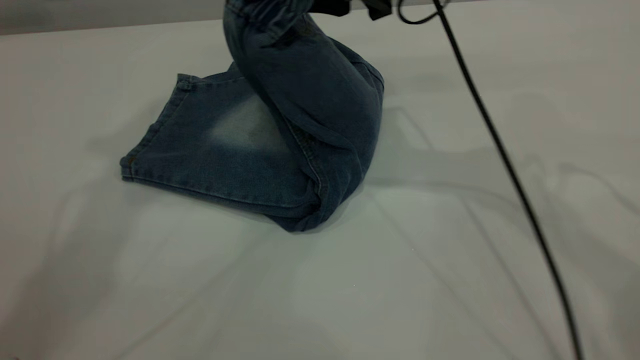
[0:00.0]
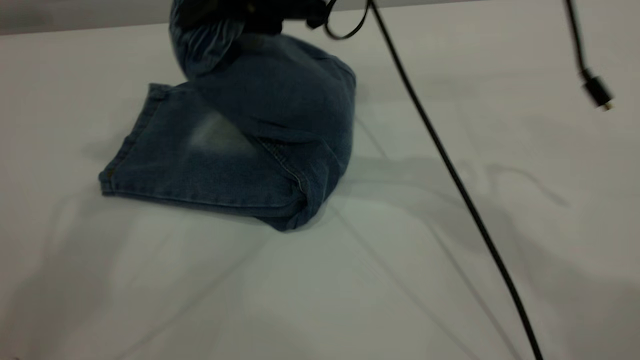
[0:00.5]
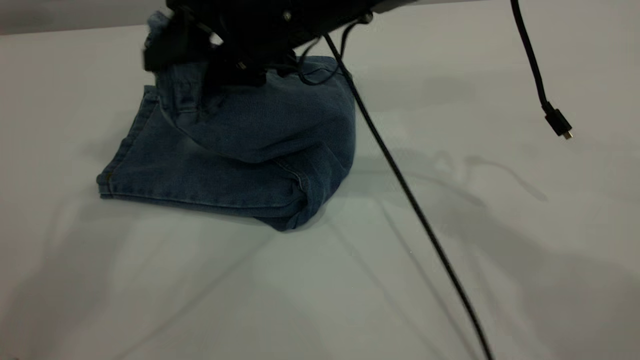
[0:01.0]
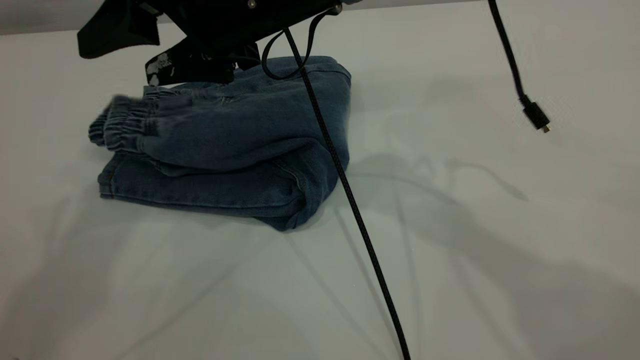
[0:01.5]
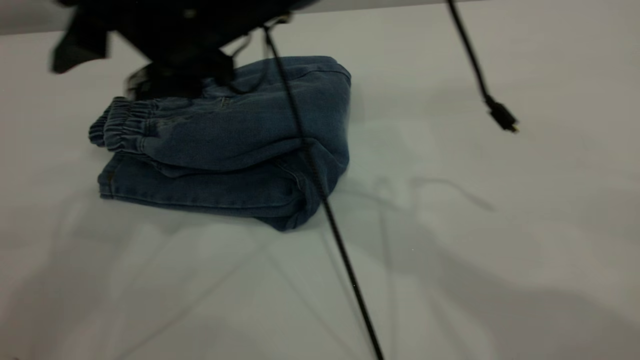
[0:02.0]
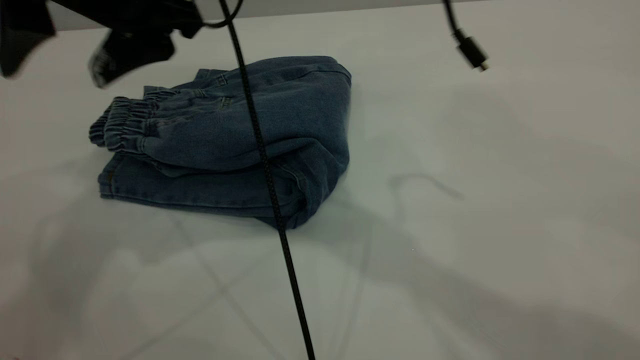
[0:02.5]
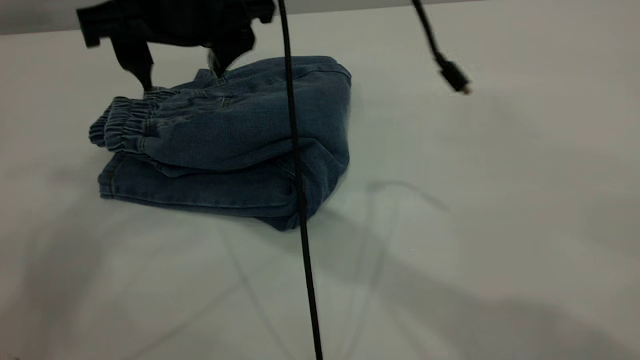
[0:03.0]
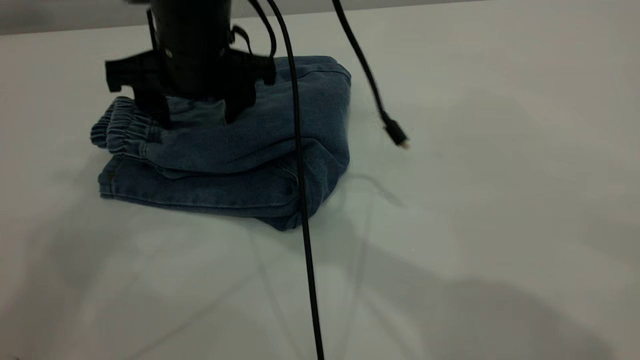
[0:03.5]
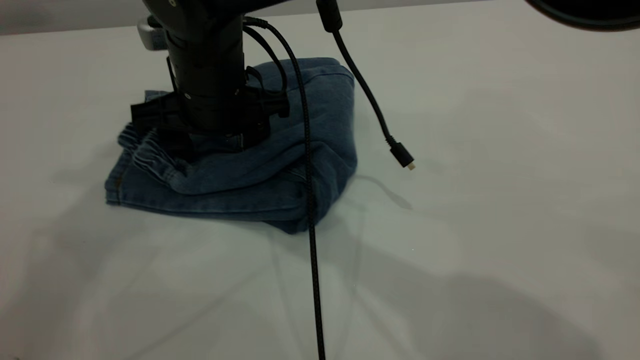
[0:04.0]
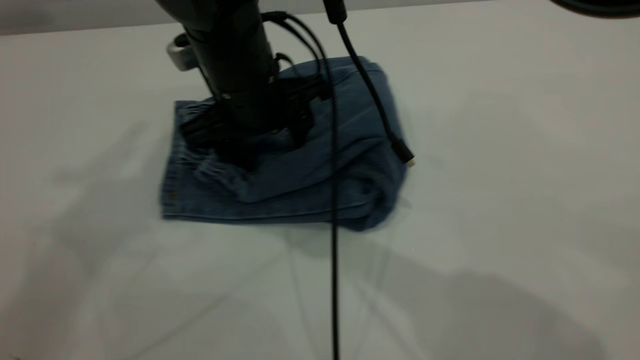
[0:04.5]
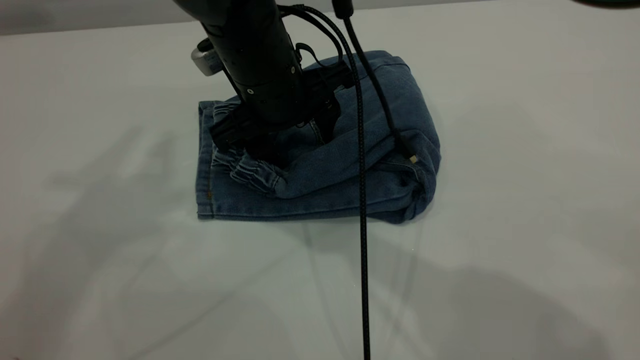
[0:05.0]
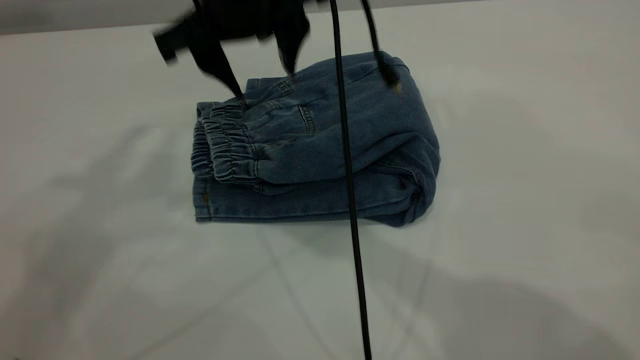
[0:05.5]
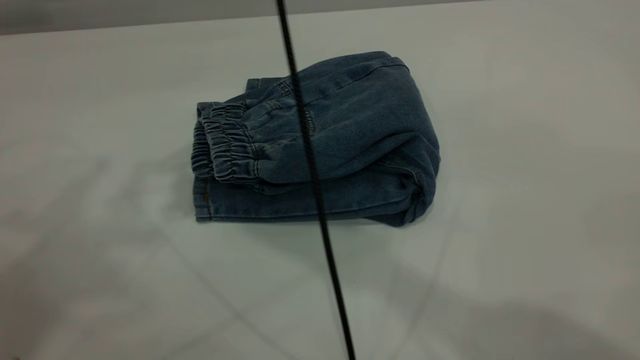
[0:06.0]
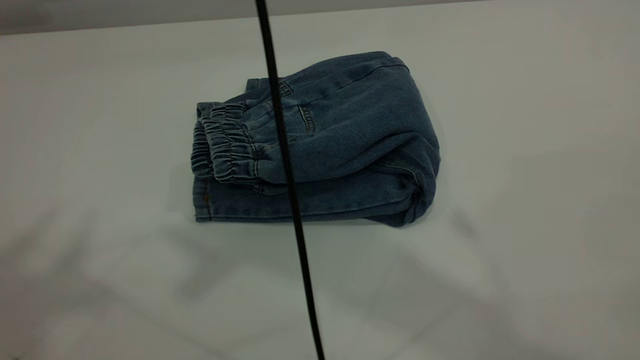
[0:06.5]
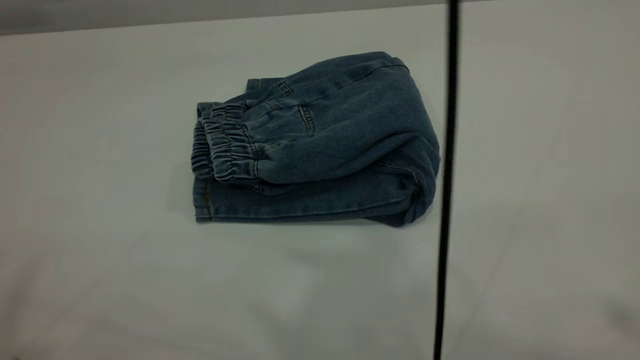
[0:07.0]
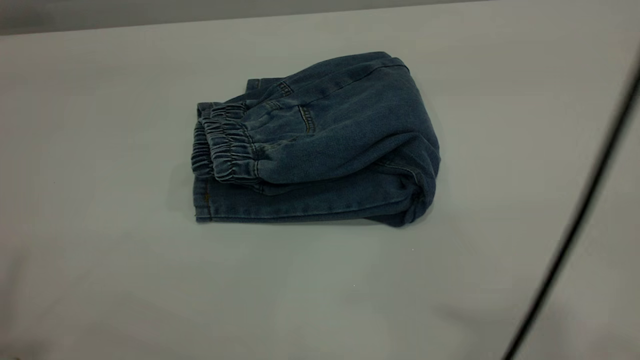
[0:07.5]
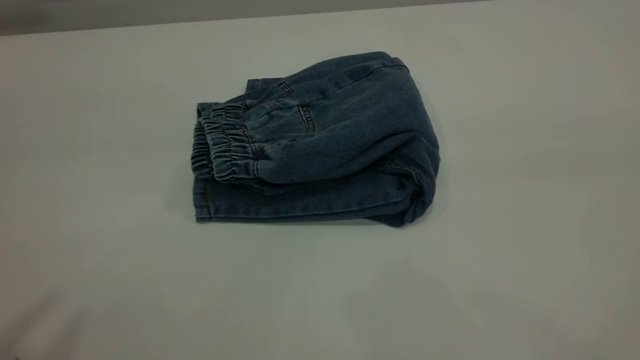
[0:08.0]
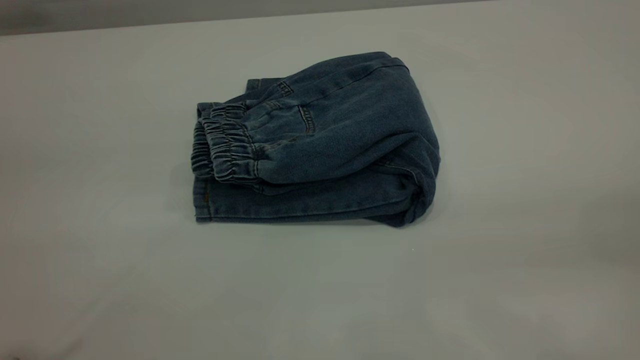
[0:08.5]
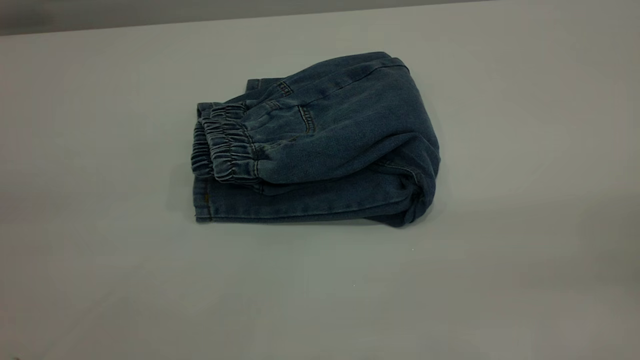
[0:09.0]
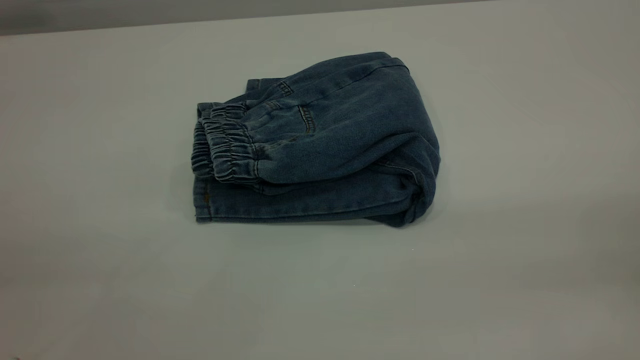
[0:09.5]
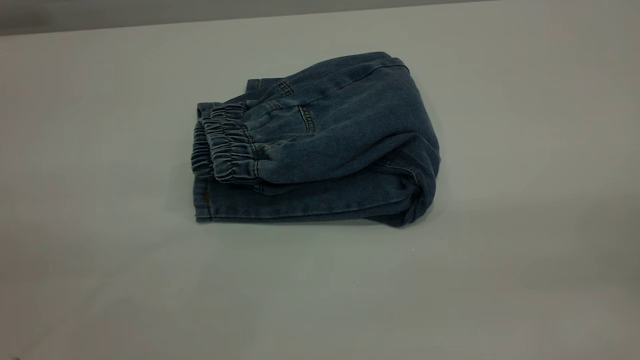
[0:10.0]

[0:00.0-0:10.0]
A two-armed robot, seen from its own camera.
0:00.0 to 0:02.0: The right gripper moves to the left, approximately 15 cm, and opens up.
0:02.0 to 0:04.0: The right gripper heads downward, covering some 10 cm, while the left gripper ends up about 5 cm from where it was.
0:04.0 to 0:06.0: The right gripper shifts roughly 25 cm upward; the left gripper heads backward, covering roughly 5 cm.
0:06.0 to 0:08.0: The right gripper is displaced backward and to the right by approximately 40 cm. Meanwhile the left gripper moves backward and downward, some 15 cm.

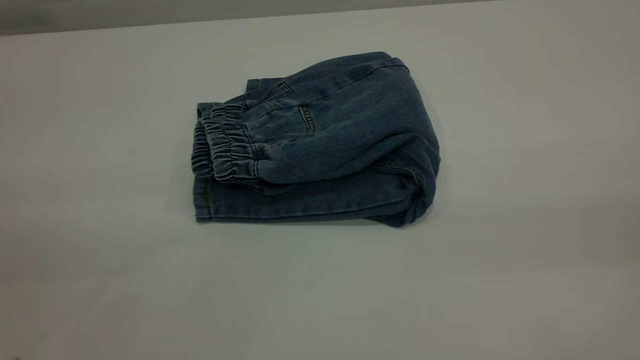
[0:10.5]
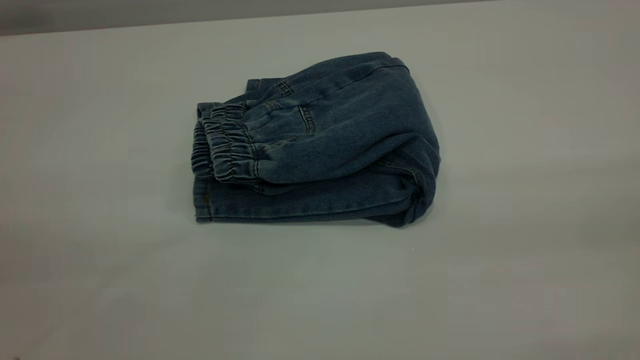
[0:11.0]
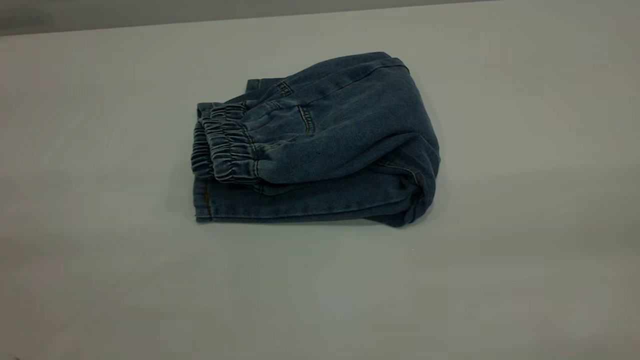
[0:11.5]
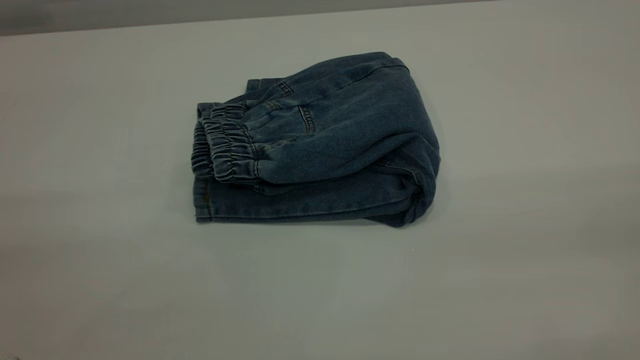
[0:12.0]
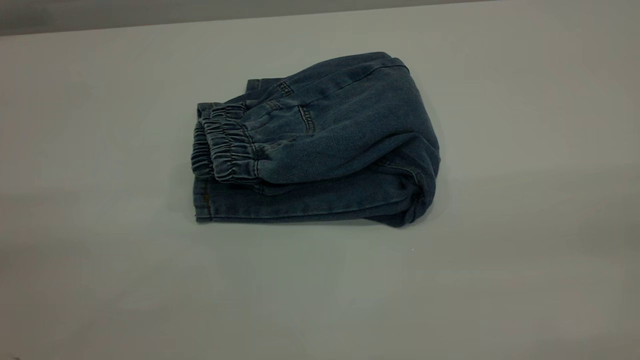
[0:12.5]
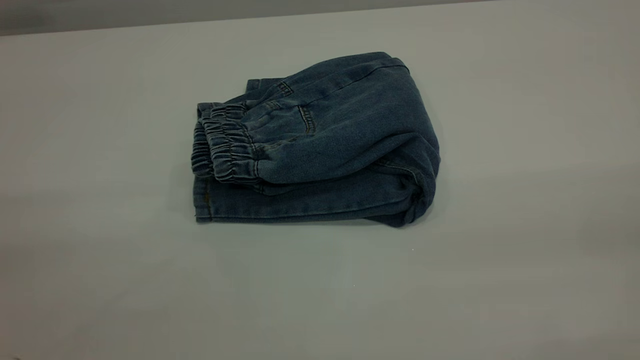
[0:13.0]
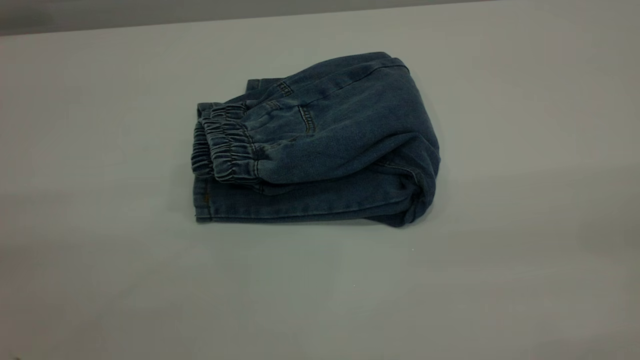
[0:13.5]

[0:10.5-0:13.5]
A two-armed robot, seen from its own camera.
0:12.0 to 0:13.5: Both grippers stay about where they are.
